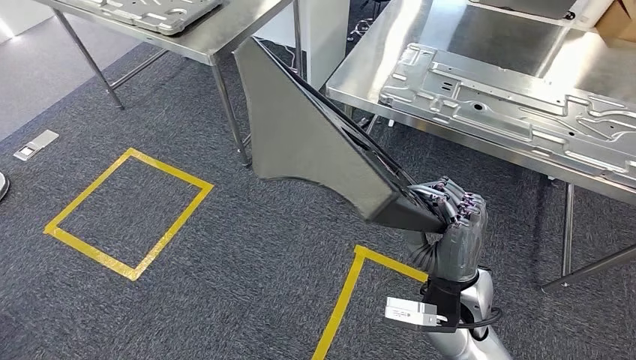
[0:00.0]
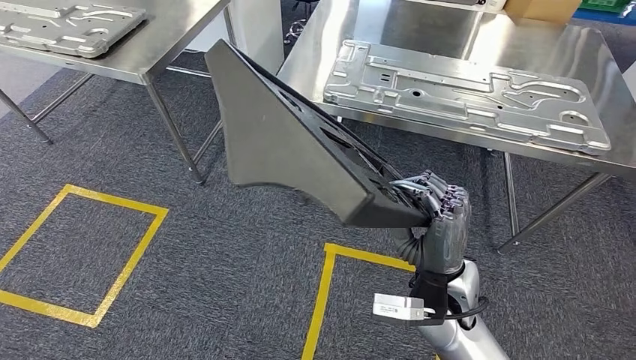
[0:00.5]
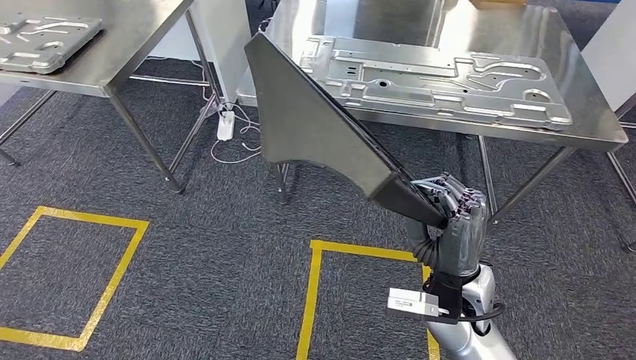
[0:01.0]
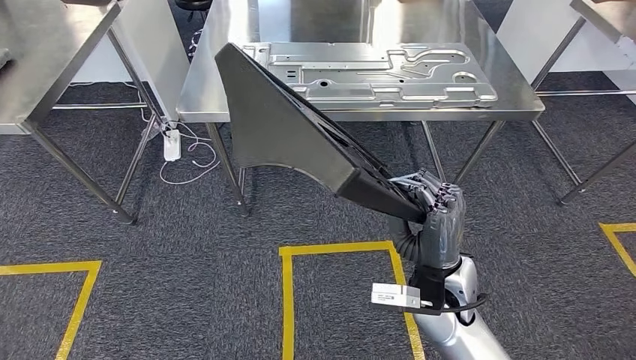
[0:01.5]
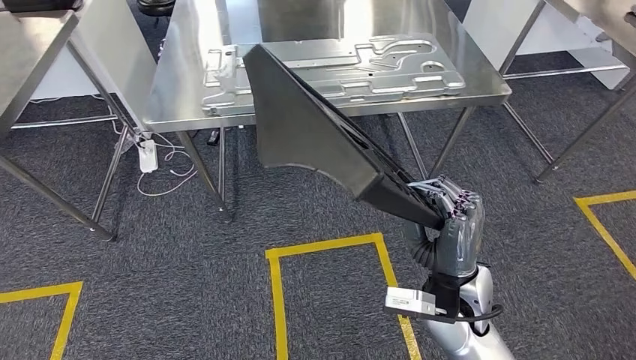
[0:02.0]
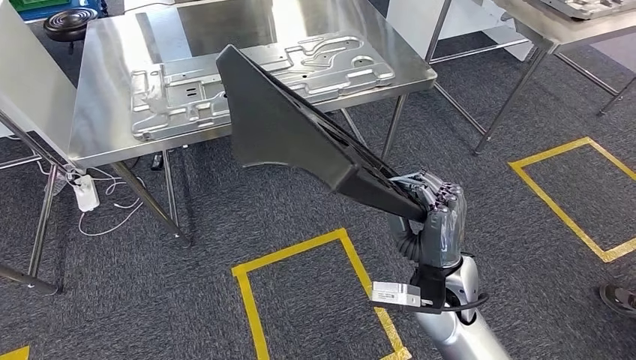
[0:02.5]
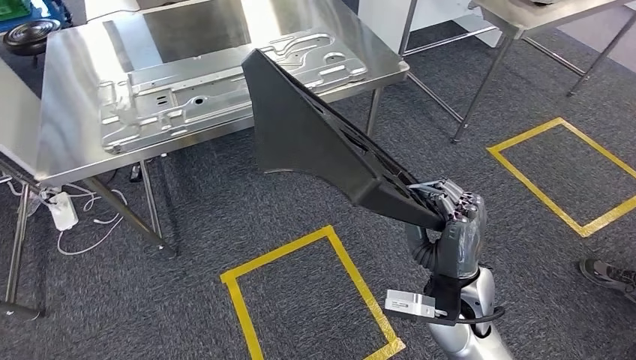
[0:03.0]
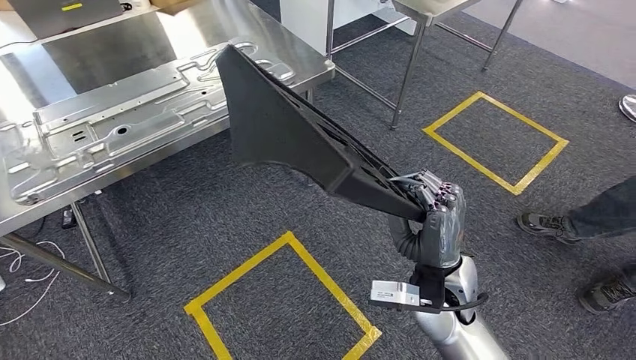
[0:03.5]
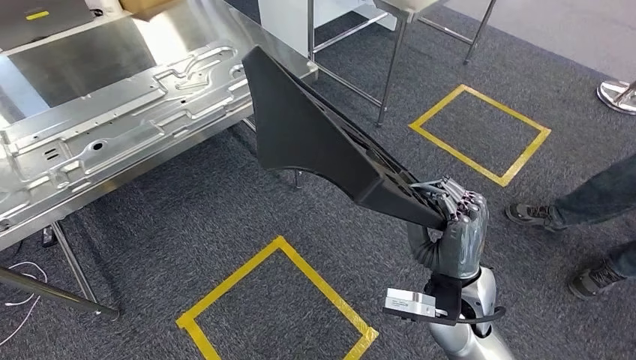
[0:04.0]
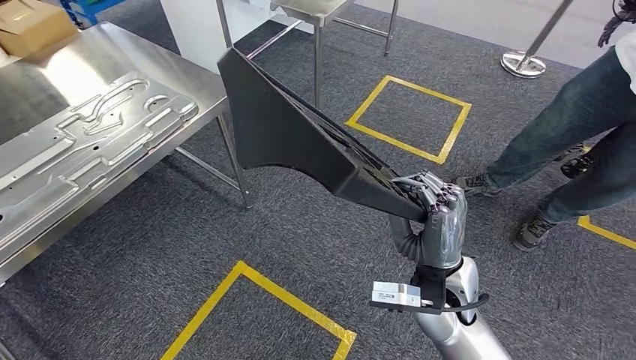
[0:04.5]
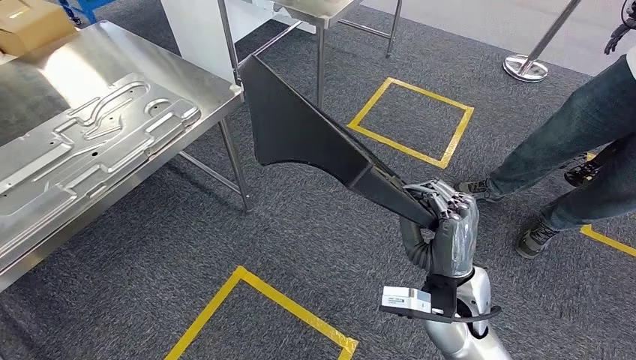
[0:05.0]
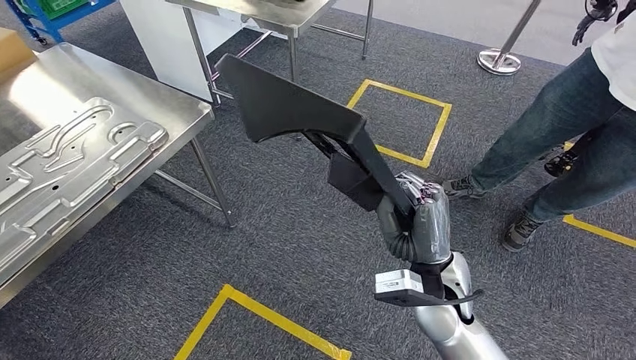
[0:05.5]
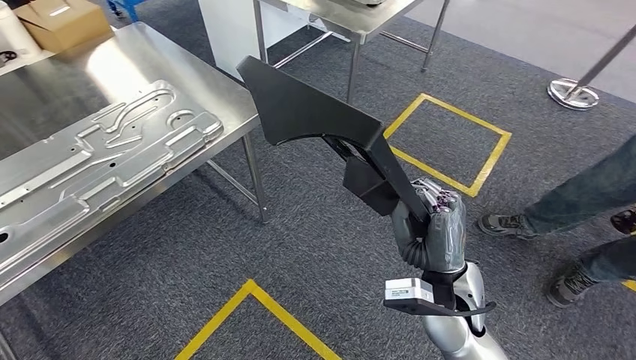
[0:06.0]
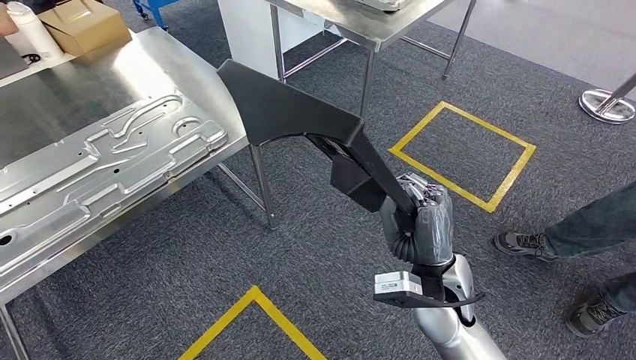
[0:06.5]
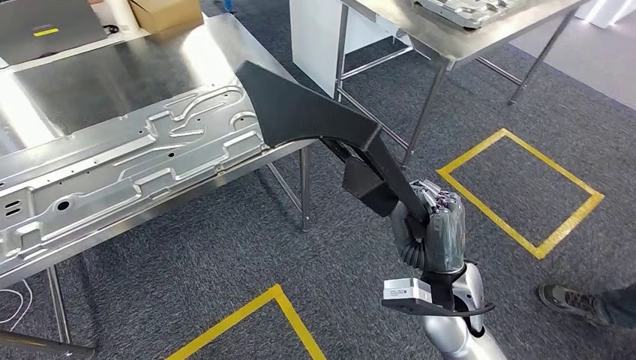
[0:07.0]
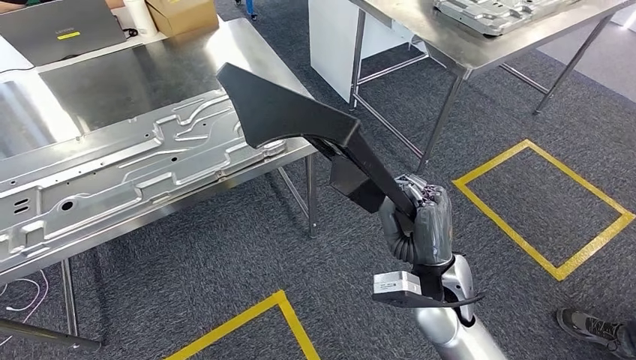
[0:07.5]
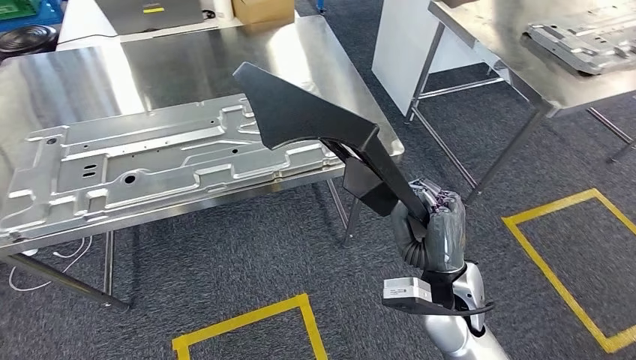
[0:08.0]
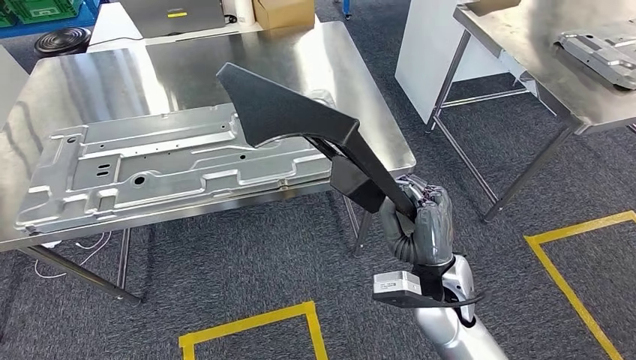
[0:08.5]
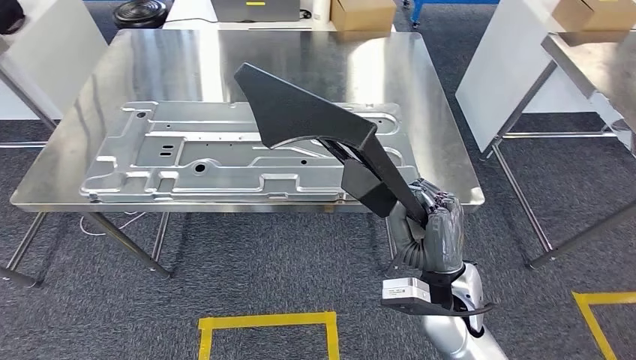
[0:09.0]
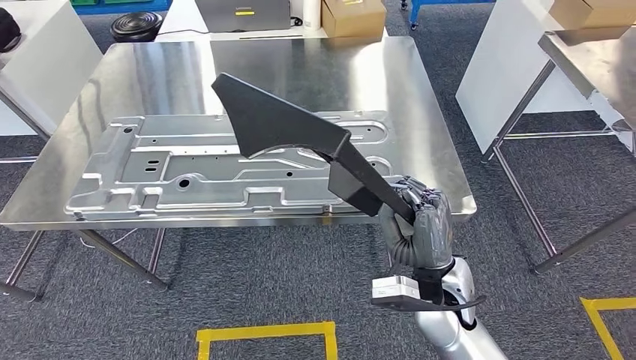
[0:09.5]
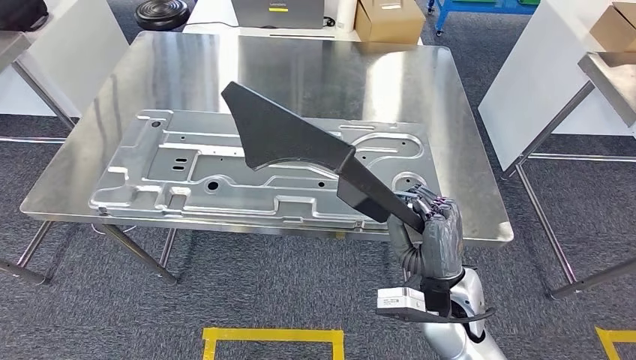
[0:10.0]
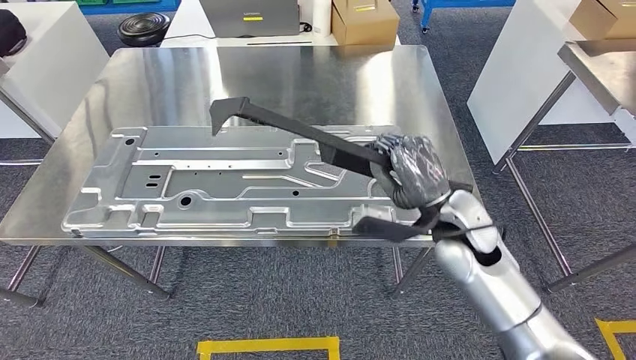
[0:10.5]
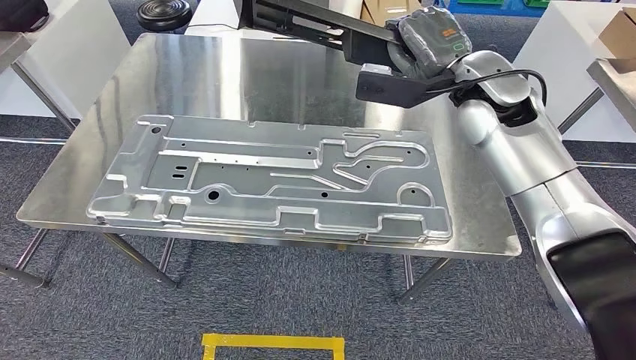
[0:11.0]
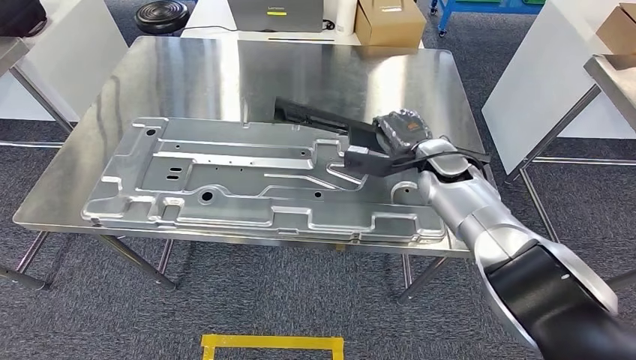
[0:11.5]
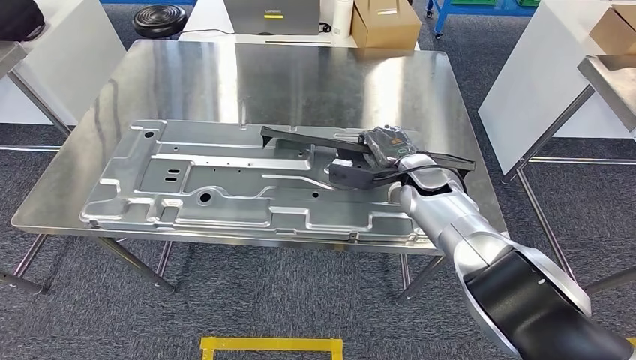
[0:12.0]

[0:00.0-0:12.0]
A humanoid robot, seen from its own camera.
Step, 0:00.0 to 0:08.5: Move the large material to the workbench.

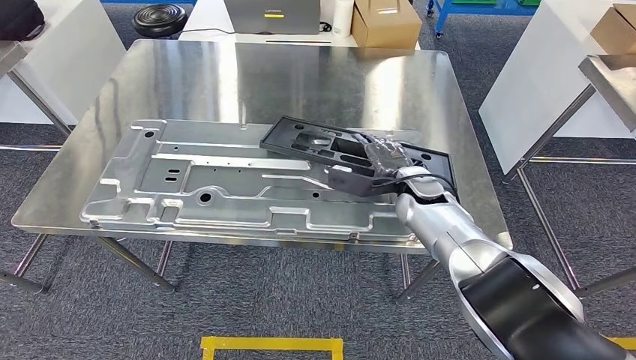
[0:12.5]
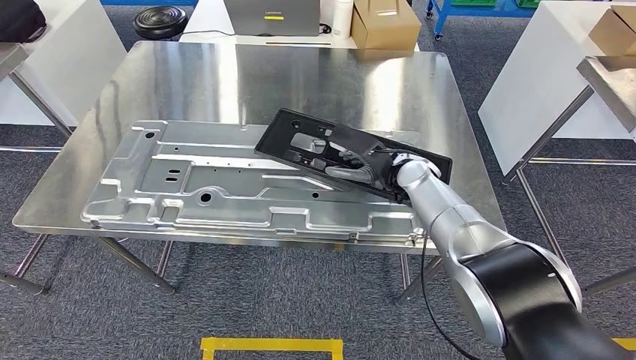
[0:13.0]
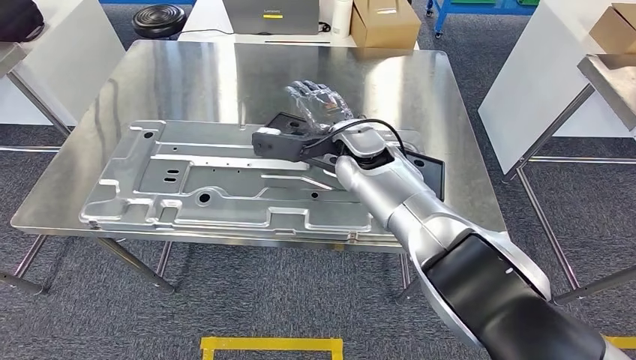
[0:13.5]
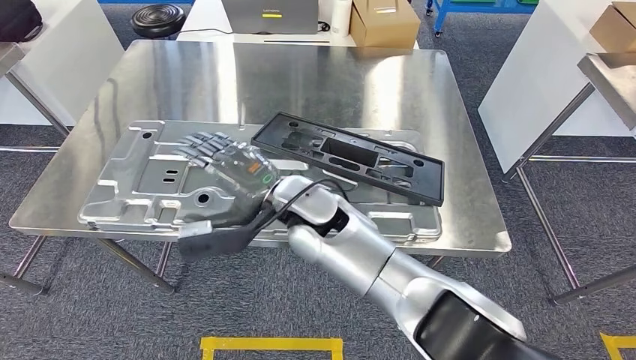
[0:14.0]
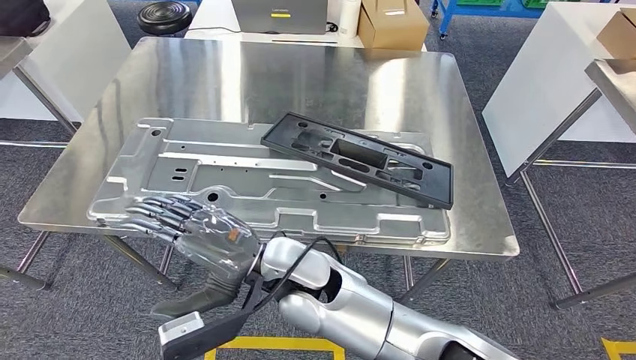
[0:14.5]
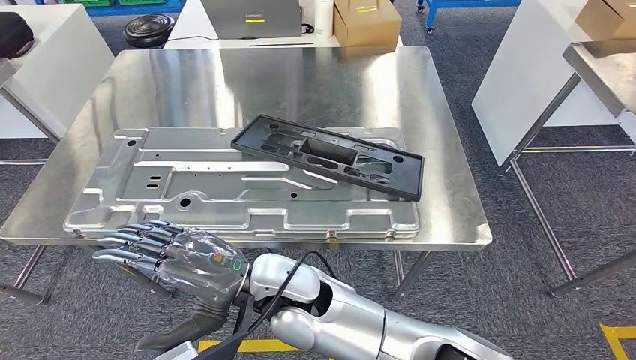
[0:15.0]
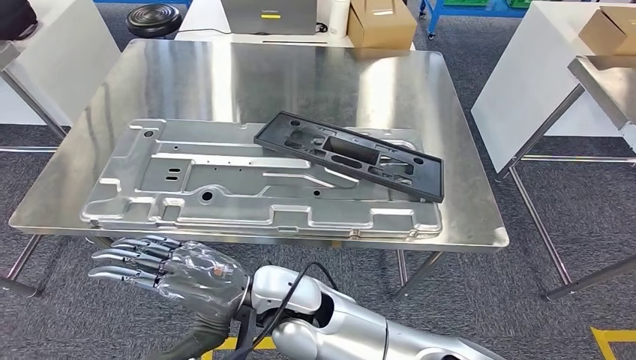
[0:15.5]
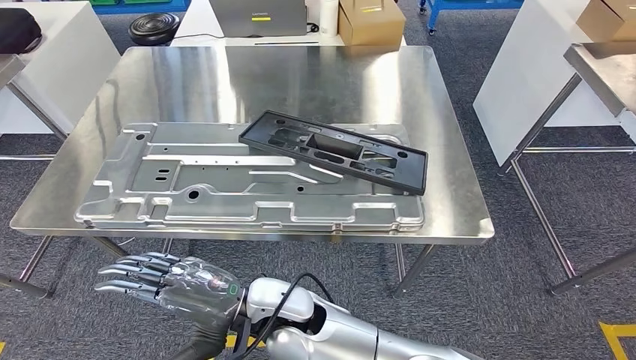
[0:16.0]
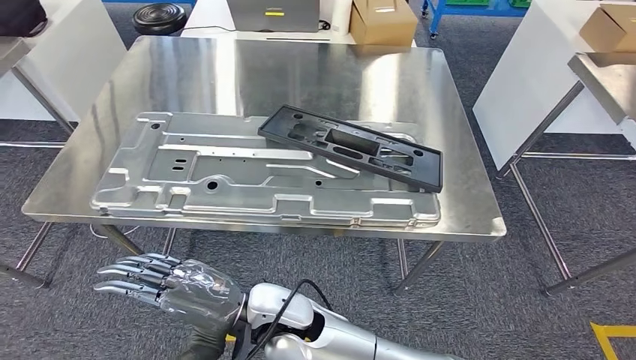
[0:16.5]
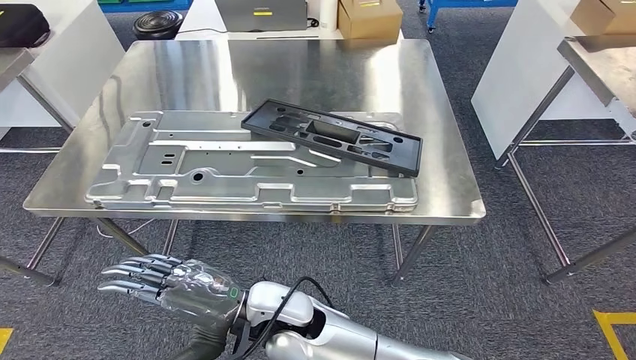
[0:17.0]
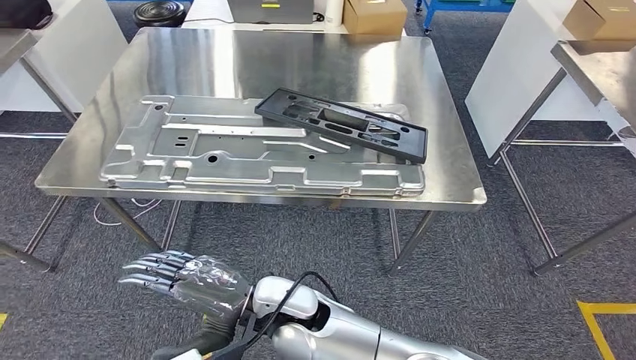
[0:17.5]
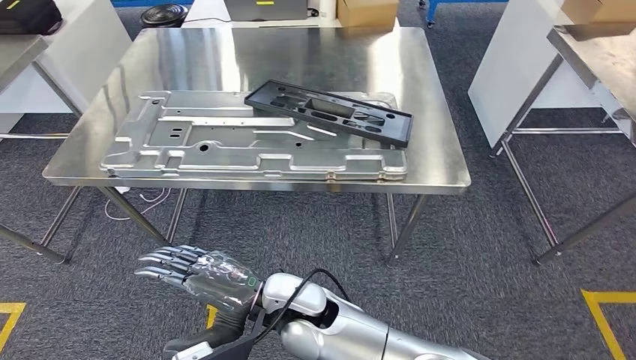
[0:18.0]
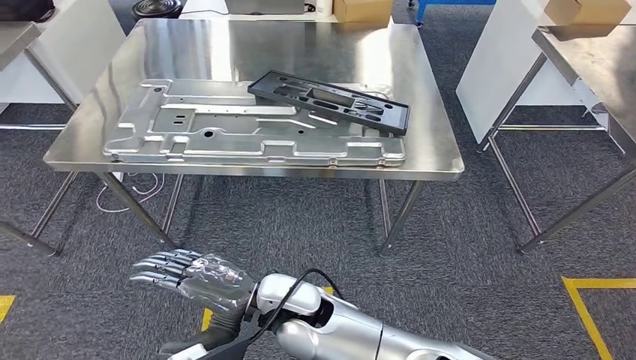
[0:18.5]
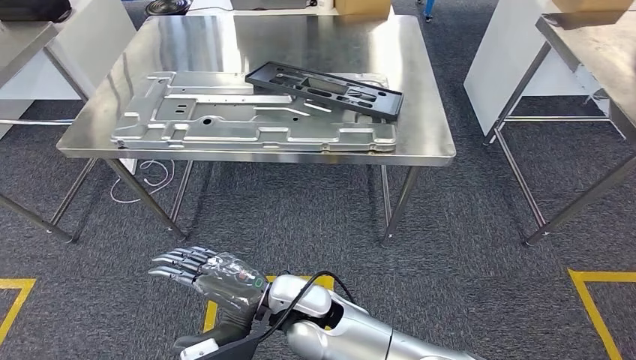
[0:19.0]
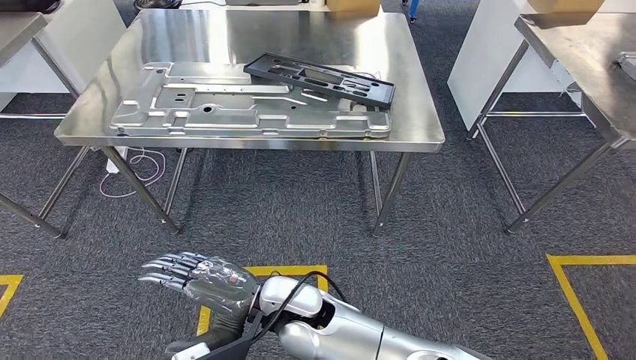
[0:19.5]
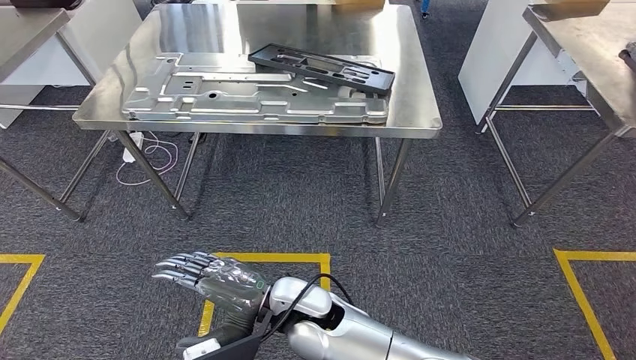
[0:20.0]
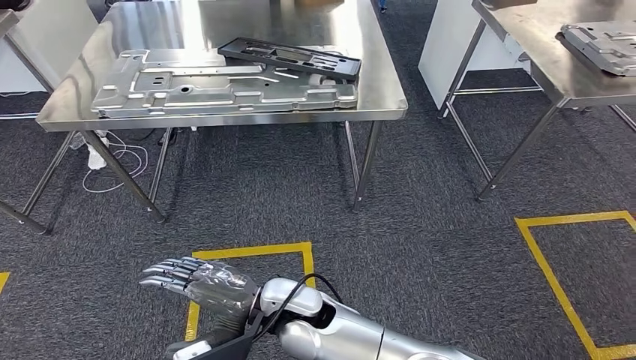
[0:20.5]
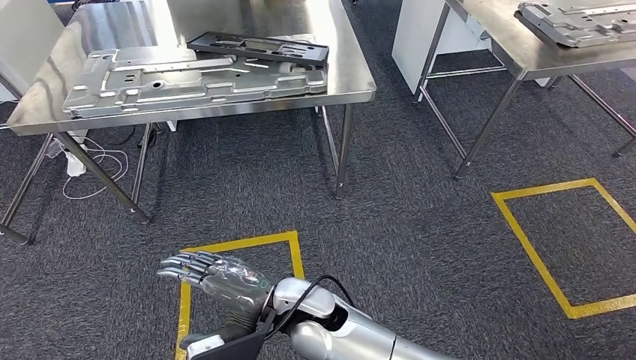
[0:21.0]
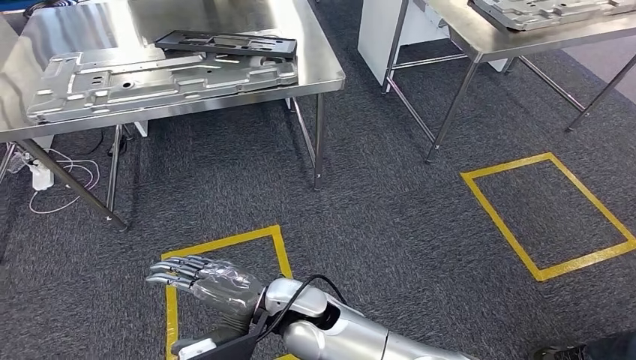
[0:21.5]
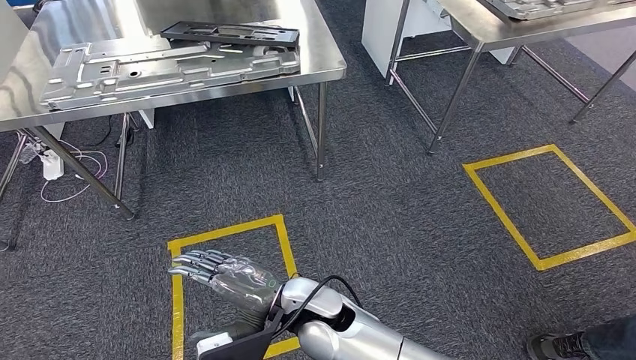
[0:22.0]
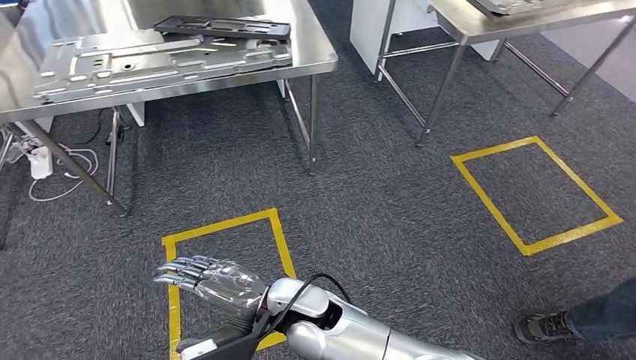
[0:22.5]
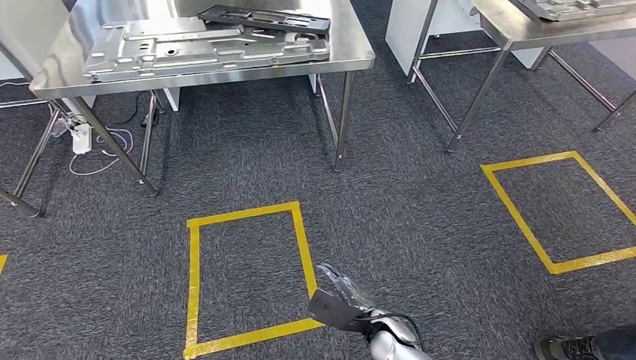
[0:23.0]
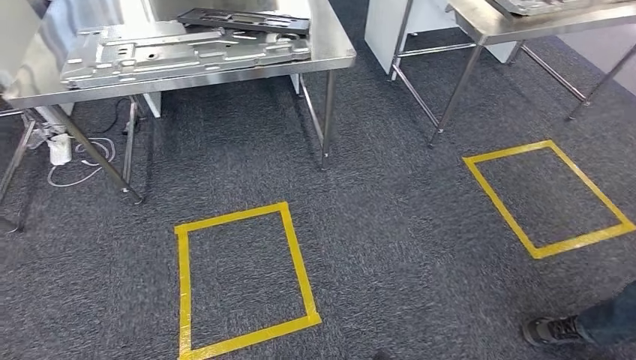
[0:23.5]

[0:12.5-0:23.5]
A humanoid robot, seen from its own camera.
Step, 0:12.5 to 0:15.5: Insert the large material into the corresponding slot on the workbench.
Step, 0:16.0 to 0:23.5: Move to the initial position of the shelf.
